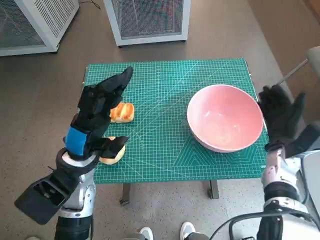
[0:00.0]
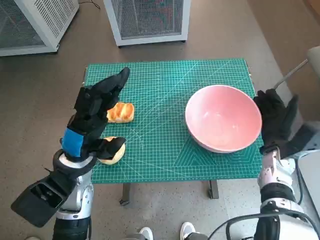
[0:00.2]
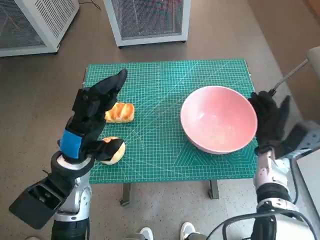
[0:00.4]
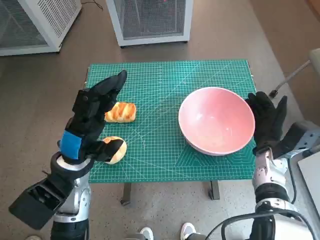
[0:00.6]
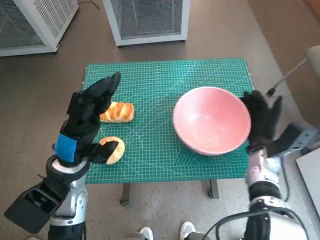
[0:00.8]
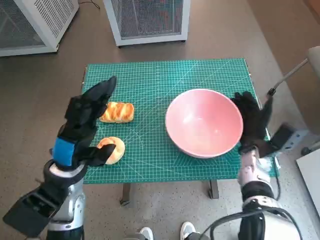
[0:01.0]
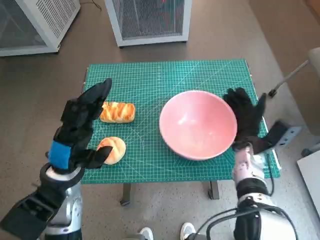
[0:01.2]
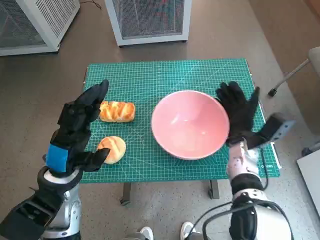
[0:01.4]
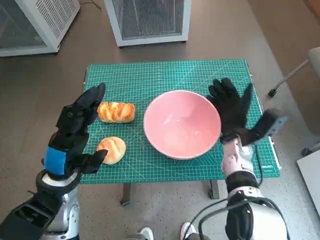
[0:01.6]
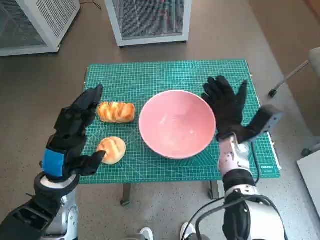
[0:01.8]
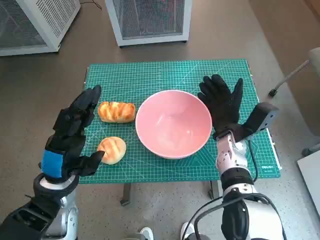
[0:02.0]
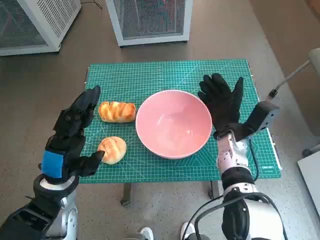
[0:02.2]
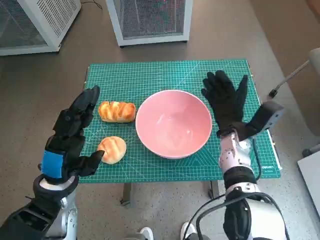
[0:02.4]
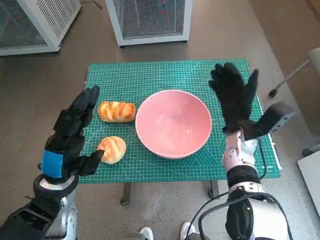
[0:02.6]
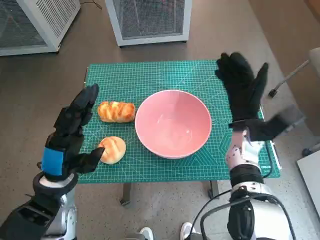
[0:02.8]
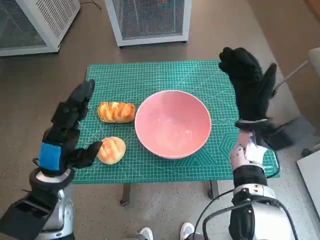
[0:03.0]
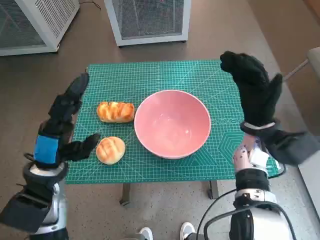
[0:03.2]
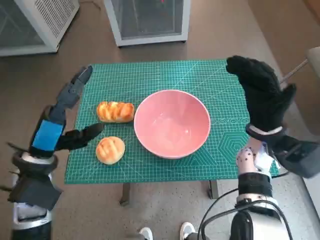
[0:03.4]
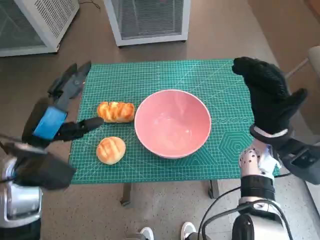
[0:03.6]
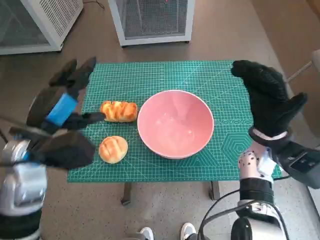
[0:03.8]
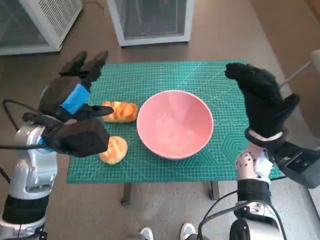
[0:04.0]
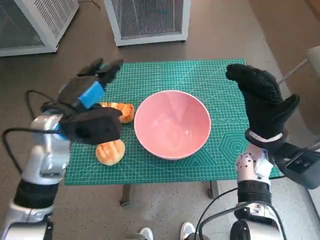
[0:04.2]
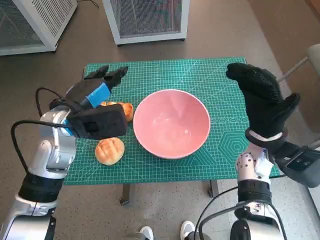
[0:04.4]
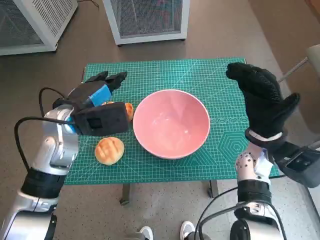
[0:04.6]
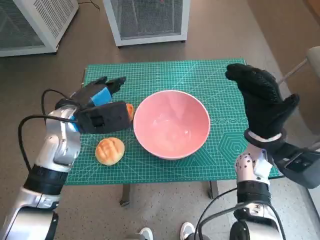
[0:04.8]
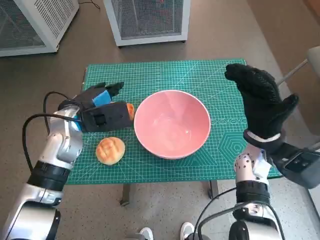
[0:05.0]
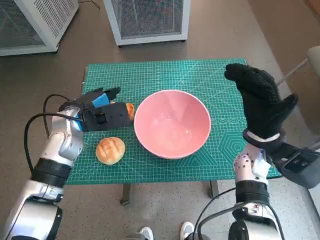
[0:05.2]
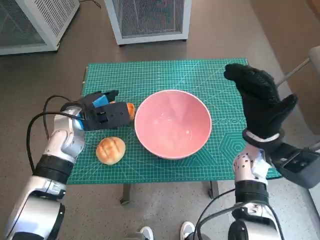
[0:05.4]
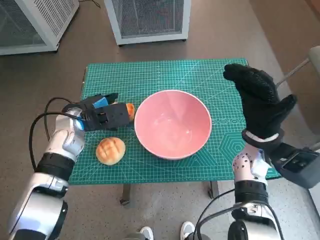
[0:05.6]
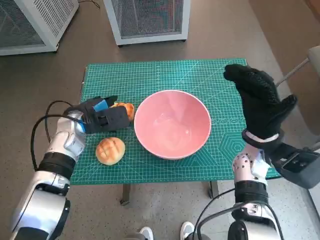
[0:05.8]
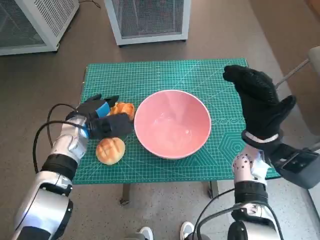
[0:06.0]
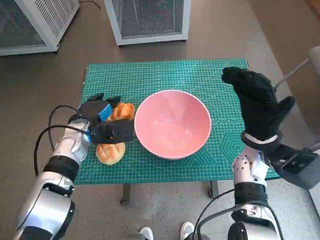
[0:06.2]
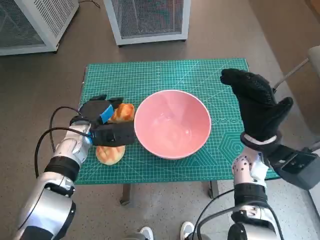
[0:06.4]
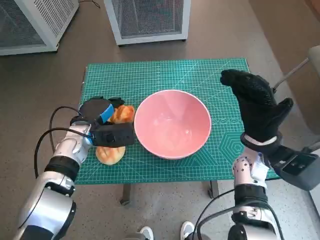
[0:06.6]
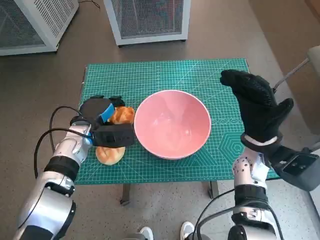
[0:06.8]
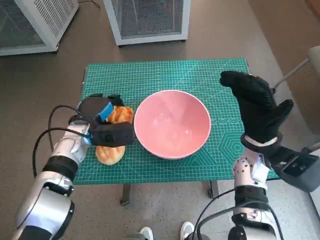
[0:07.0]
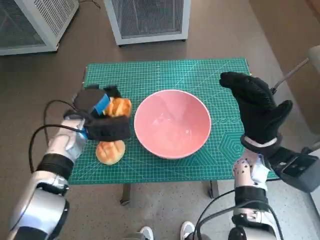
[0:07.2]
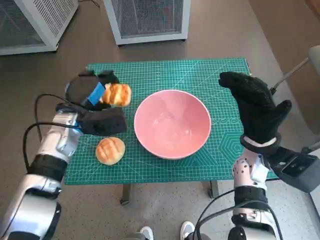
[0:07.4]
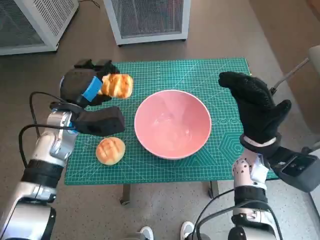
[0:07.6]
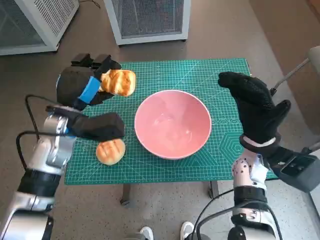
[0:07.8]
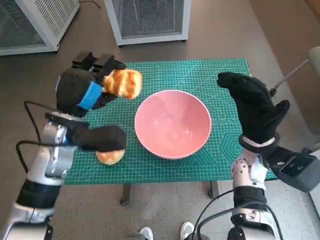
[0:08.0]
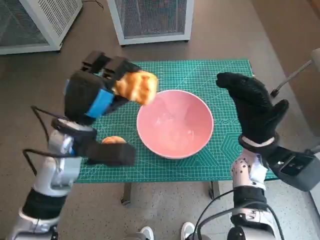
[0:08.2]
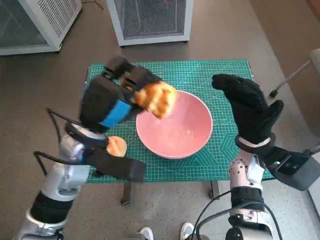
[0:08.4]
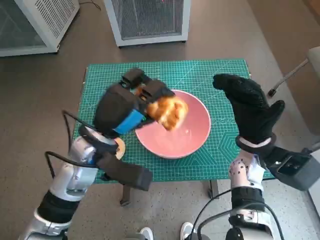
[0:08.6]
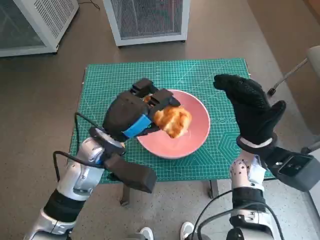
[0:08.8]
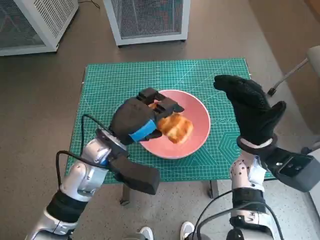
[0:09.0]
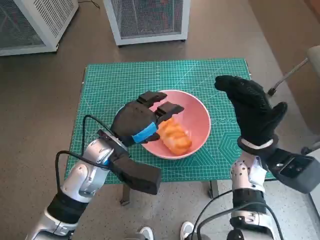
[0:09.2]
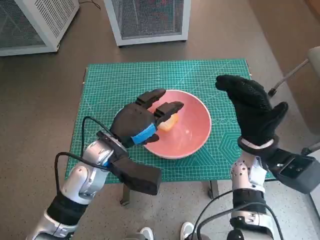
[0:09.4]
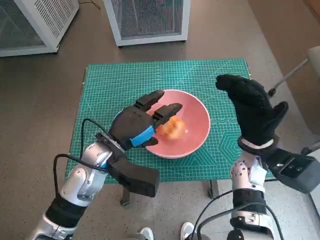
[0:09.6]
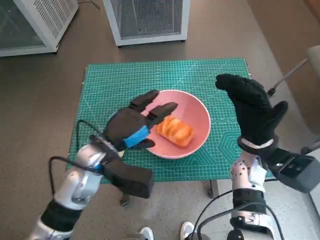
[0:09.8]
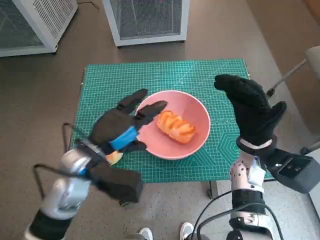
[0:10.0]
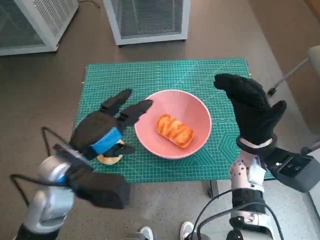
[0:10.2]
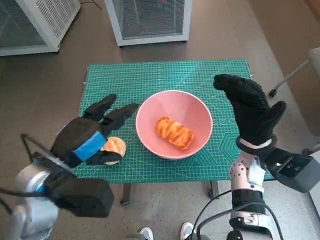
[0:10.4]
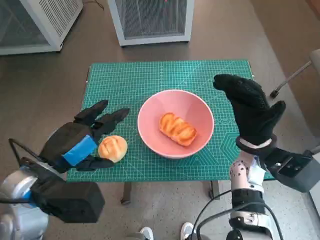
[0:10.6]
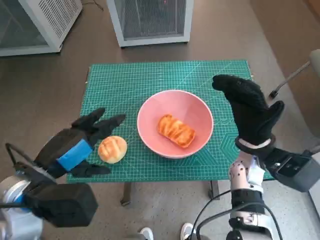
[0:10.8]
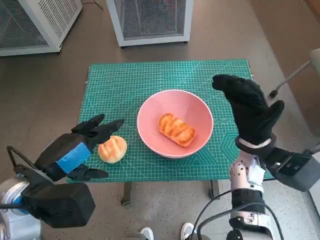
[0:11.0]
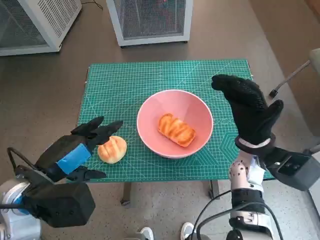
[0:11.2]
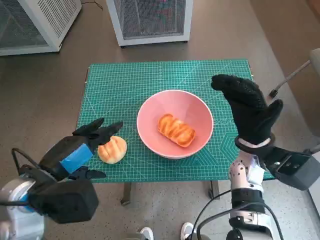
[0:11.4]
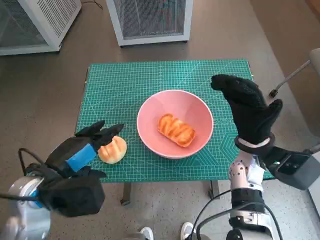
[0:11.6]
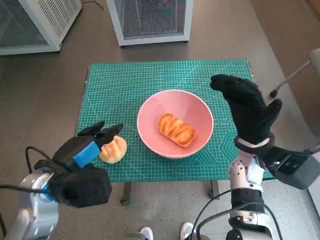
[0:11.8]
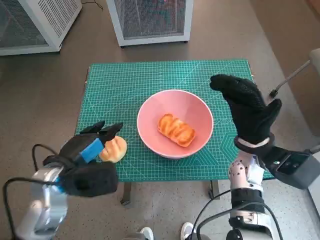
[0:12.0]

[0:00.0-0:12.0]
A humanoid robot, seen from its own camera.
Task of the whole recording: Push the bowl into the center of the table and put the bread into the bowl.
Step, 0:00.0 to 0:02.2: Move the pink bowl to the center of table with right hand.
Step, 0:02.4 to 0:06.6: Grasp the long bread with left hand.
Step, 0:06.8 to 0:09.0: Place the long bread in pink bowl with left hand.
0:00.0 to 0:01.6: The right hand goes roughly 10 cm to the left.
0:01.6 to 0:03.0: The right hand is displaced upward by roughly 5 cm.
0:03.0 to 0:04.4: The left hand heads forward and upward, covering about 10 cm.
0:04.4 to 0:06.0: The left hand travels downward by roughly 10 cm.
0:07.6 to 0:09.0: The left hand shifts some 10 cm to the right and backward.
0:09.0 to 0:10.4: The left hand goes about 10 cm backward and to the left.

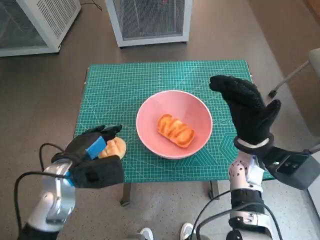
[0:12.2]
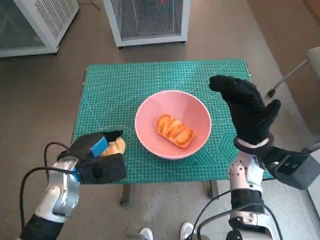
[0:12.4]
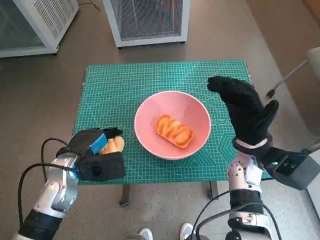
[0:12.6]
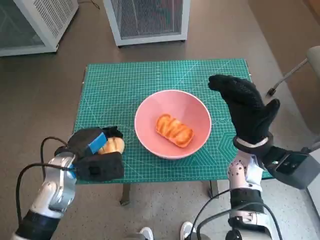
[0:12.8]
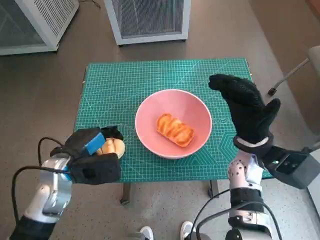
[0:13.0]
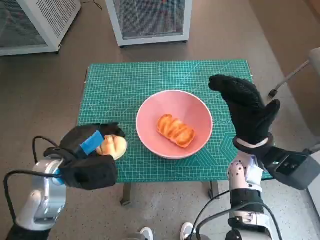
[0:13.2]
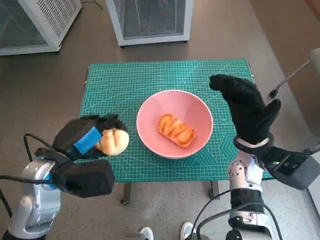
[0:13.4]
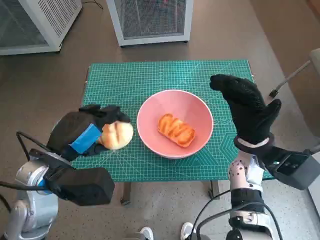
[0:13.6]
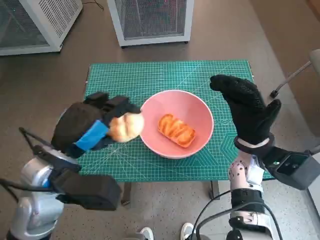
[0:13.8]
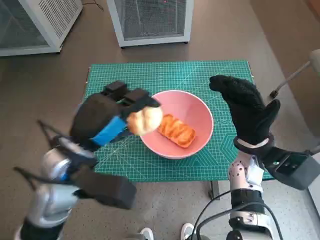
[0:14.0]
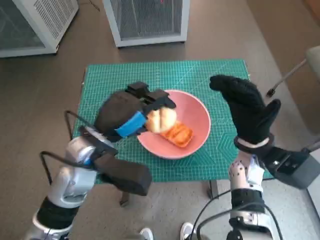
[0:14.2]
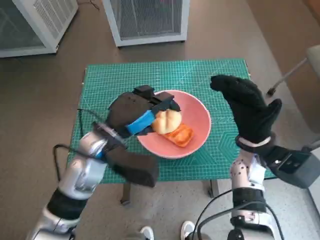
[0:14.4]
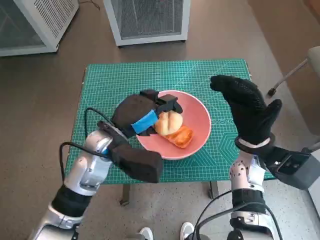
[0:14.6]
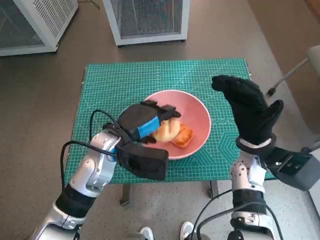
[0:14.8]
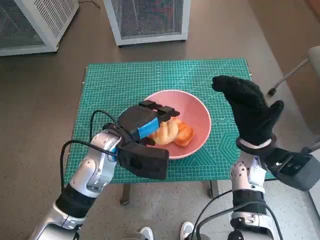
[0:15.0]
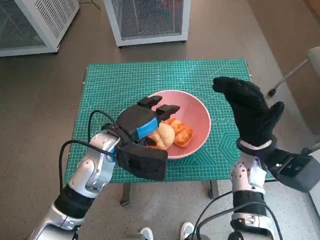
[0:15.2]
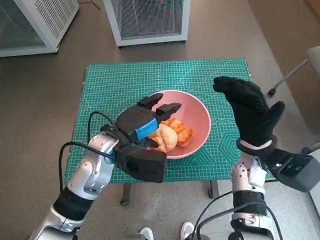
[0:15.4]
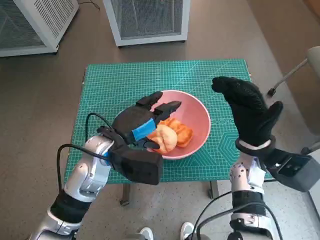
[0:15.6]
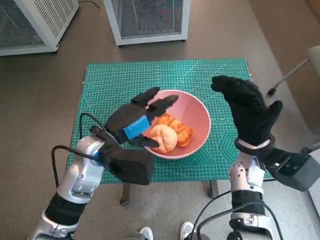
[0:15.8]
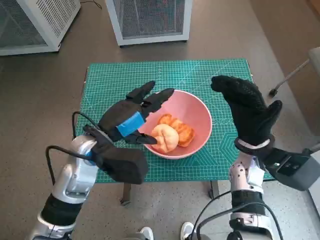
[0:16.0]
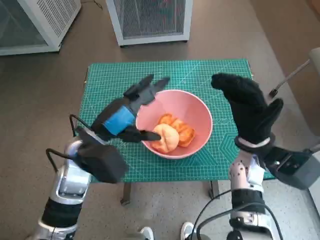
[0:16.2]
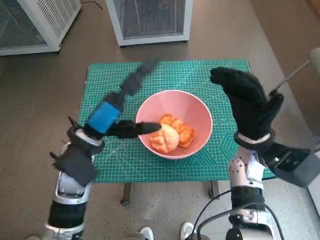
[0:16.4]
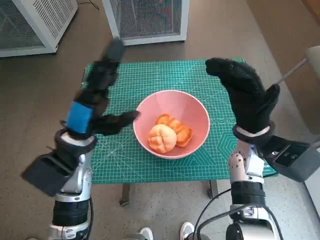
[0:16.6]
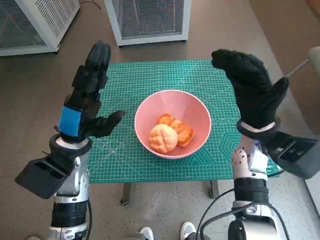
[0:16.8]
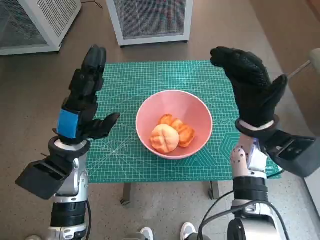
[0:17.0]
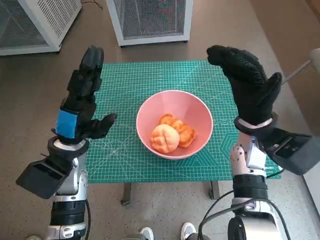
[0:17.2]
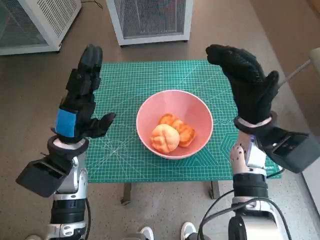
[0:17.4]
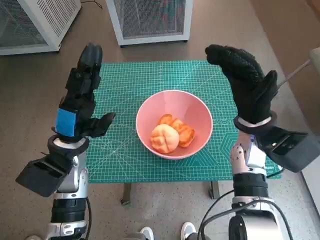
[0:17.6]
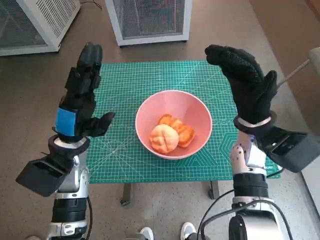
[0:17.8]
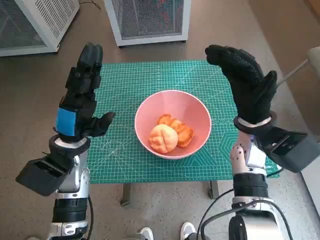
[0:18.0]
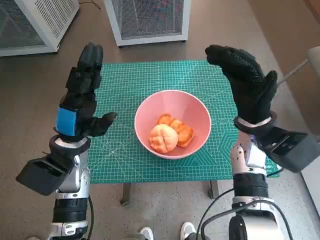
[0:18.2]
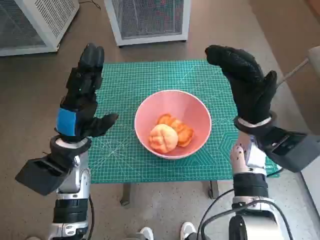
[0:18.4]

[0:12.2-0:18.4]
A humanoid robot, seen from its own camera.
Task of the whole recording: Push the bowl into the center of the table and put the bread into the bowl.
Step, 0:12.8 to 0:15.0: Place the round bread in pink bowl with left hand.
0:12.2 to 0:13.8: The left hand moves upward, some 10 cm.
0:13.8 to 0:15.4: The left hand travels forward, to the right and downward by some 10 cm.
0:15.4 to 0:16.8: The left hand goes roughly 5 cm to the left.
0:16.8 to 0:18.4: The hands stay close to where they were, moving slightly.
